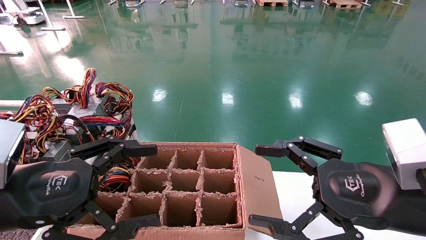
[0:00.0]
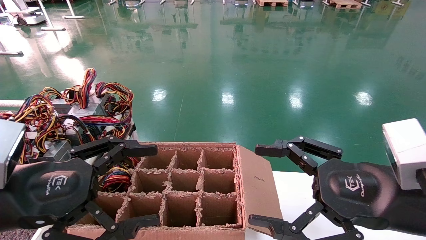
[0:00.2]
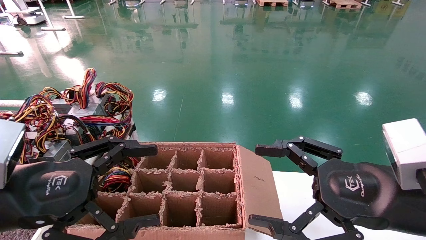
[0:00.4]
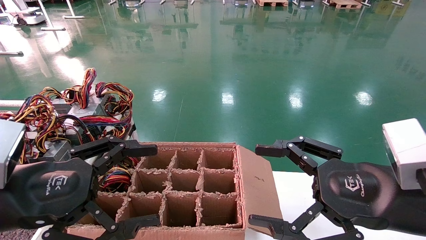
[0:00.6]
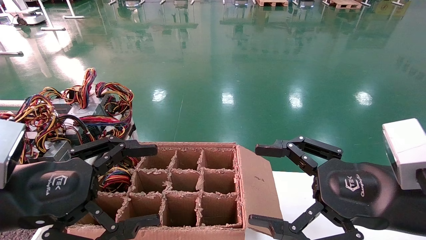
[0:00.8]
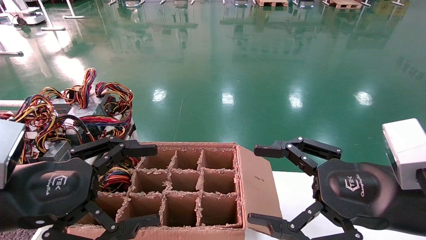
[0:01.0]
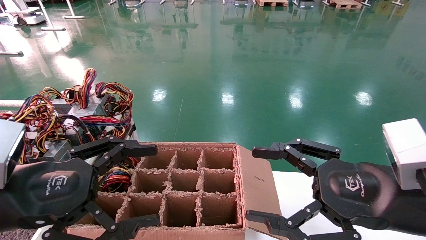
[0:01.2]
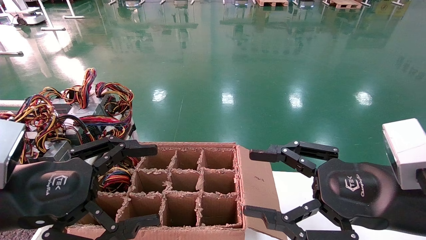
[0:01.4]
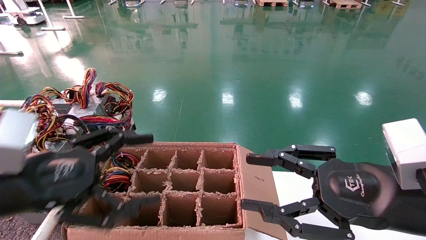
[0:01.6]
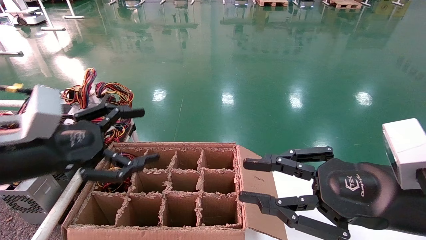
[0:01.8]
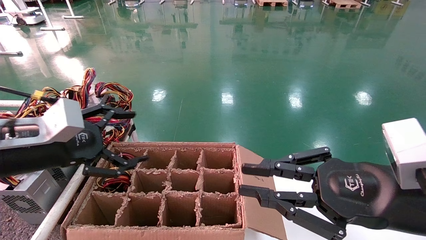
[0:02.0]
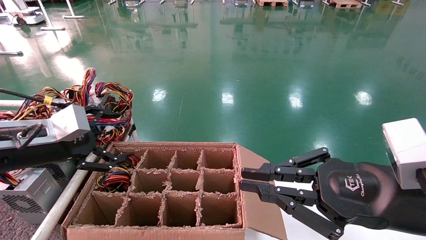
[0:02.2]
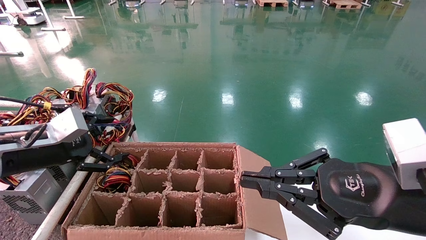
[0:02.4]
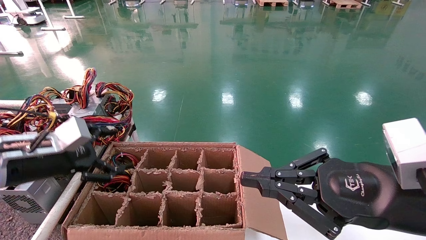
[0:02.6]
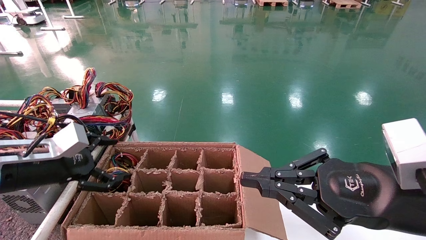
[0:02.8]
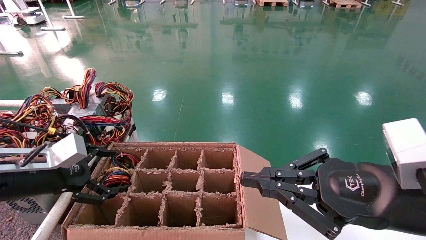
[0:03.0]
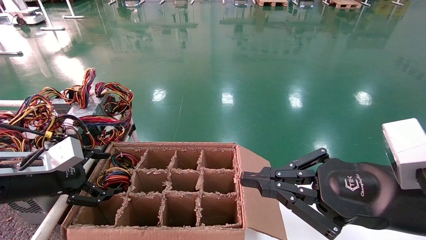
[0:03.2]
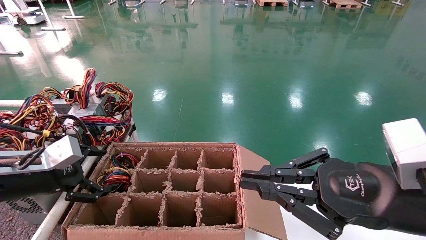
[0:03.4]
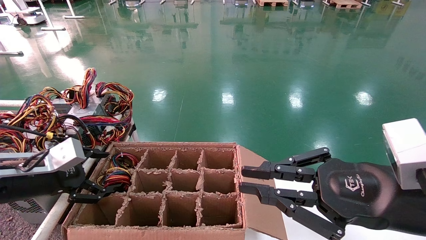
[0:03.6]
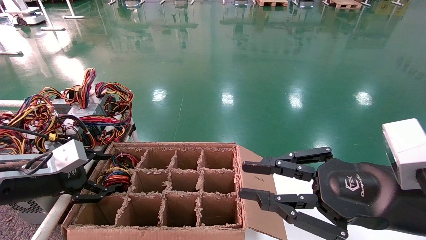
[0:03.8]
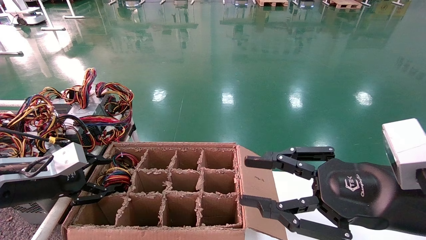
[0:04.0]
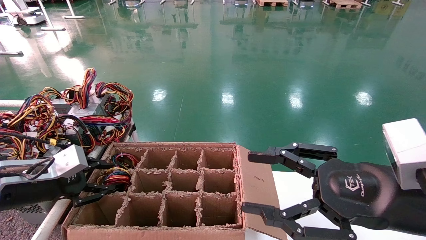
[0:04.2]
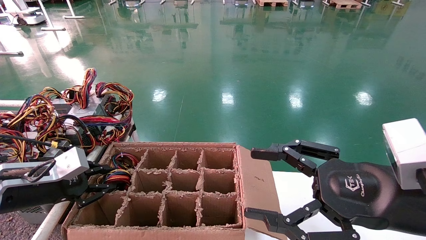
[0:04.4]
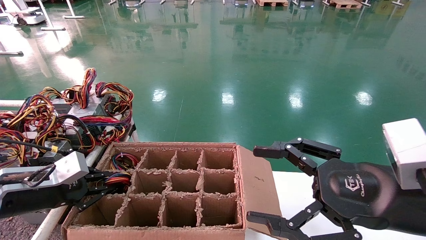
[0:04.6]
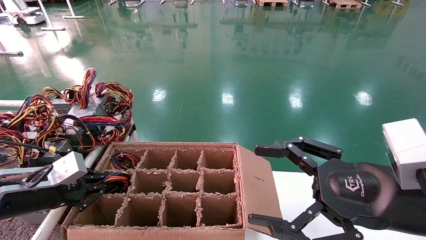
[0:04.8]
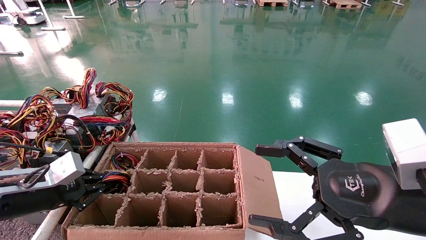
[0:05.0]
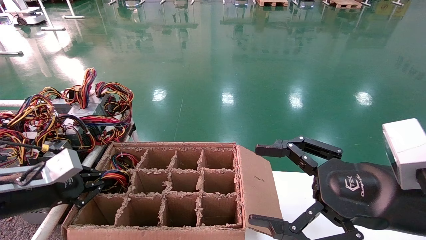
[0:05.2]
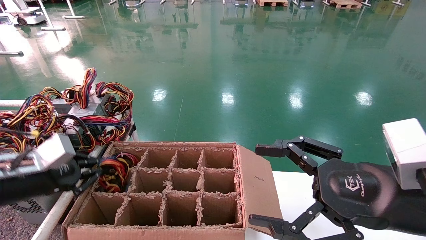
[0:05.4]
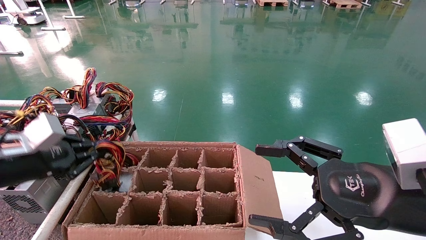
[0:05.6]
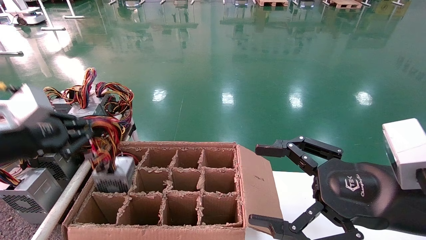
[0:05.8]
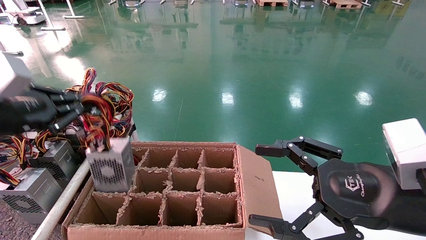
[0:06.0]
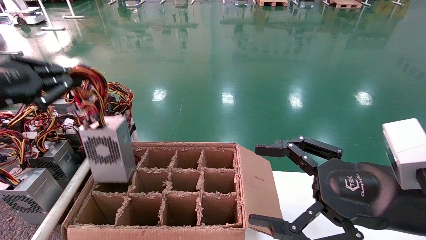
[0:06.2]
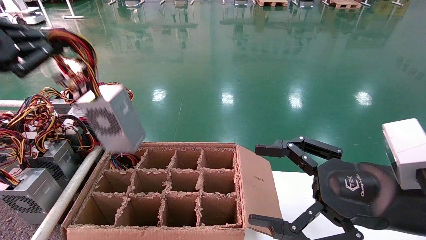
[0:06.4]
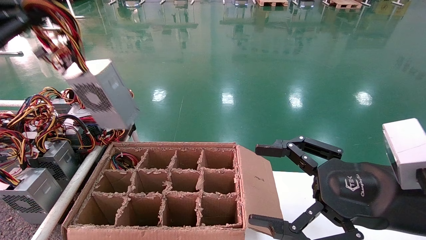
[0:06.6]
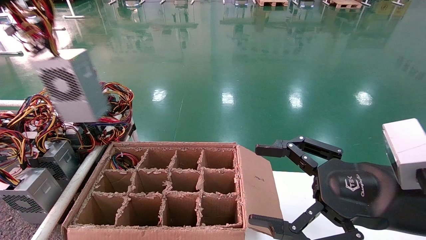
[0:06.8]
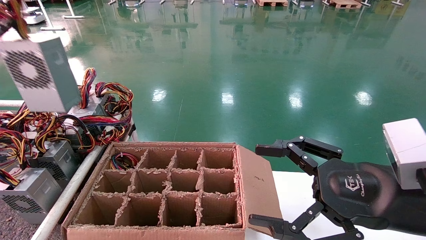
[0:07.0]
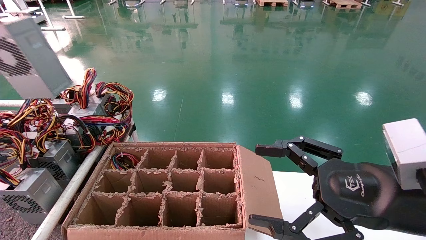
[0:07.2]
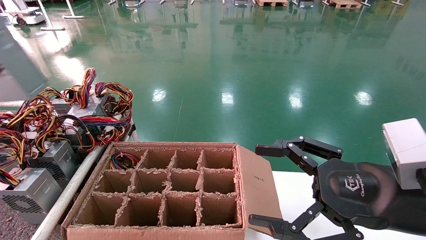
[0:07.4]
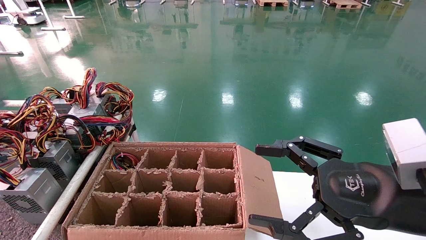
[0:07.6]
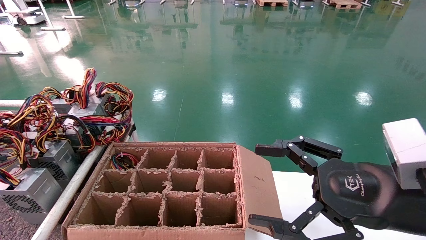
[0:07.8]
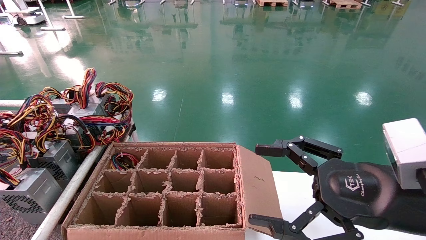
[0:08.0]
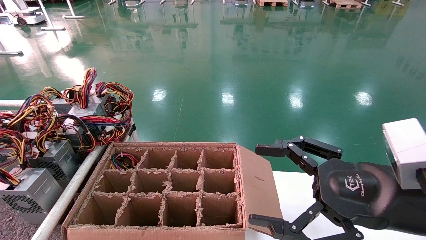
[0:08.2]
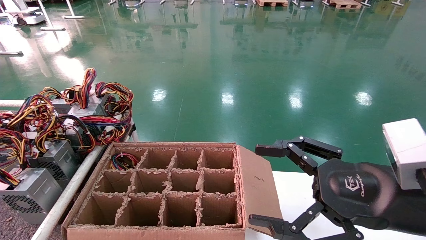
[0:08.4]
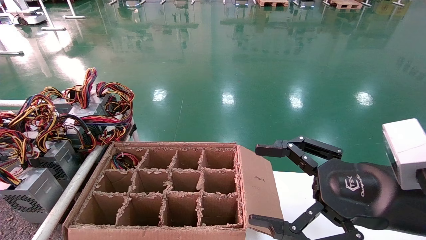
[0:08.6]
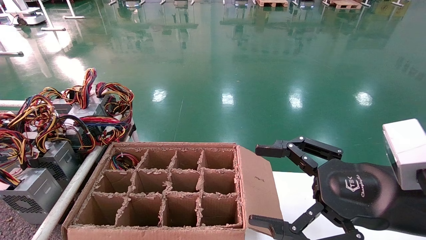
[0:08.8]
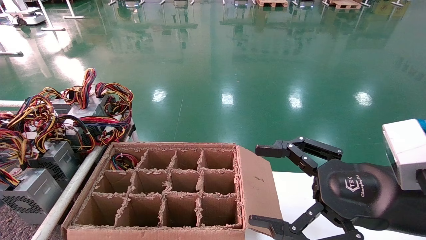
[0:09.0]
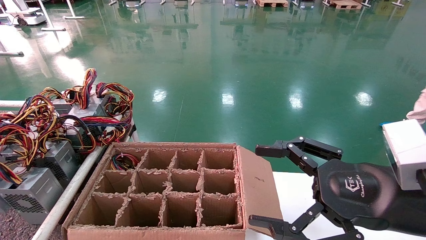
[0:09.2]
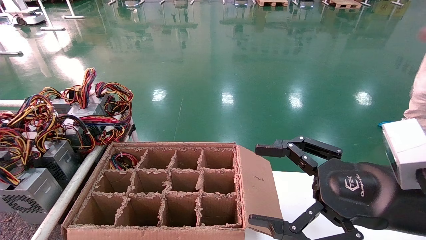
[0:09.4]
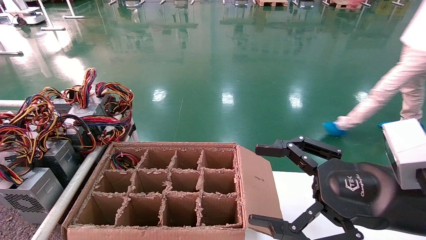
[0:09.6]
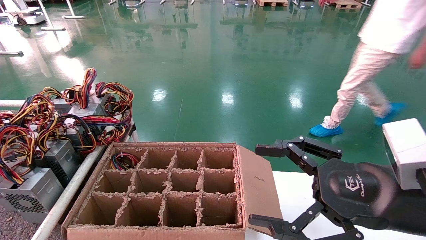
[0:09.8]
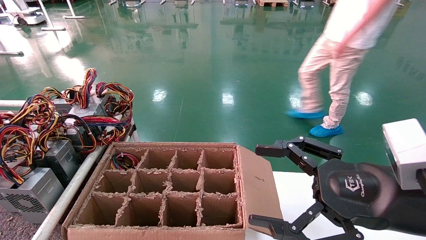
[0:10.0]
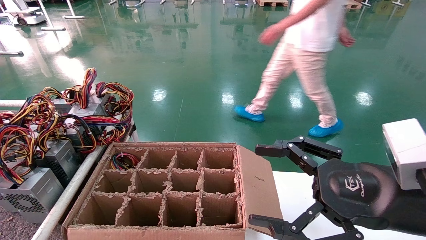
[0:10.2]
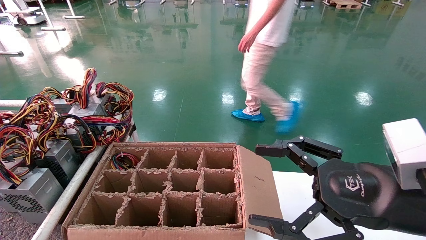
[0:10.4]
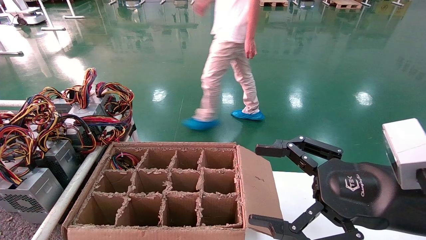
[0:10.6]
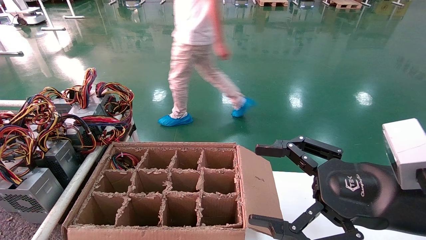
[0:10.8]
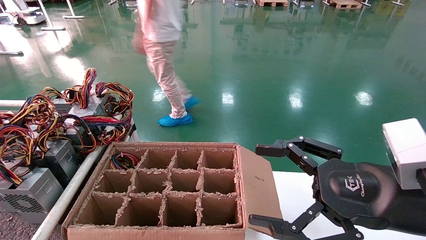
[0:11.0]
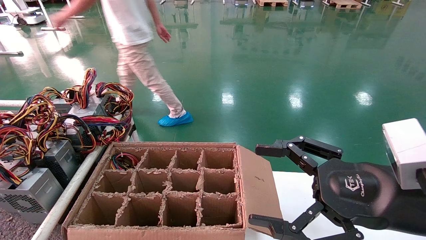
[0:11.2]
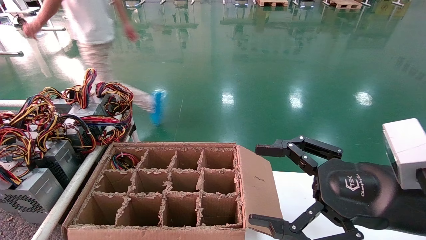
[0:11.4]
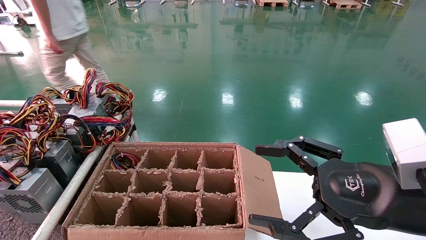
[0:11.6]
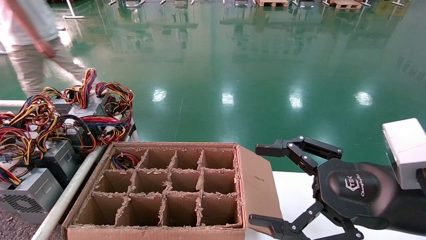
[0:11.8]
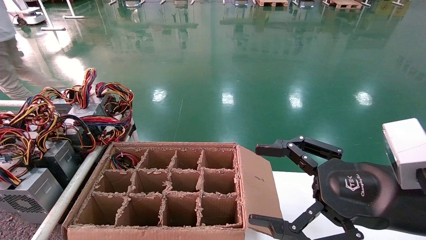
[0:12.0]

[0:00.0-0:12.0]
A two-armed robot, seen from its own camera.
Step, 0:02.0 to 0:05.0: Grab and lift the power supply from the large box.
Step, 0:05.2 to 0:10.8: Place the power supply on the operating table.
0:00.0 to 0:01.6: There are only small adjustments of the grippers.
0:01.6 to 0:03.0: The right gripper closes its fingers. The left gripper heads forward, to the left and downward, covering about 10 cm.
0:03.0 to 0:04.4: The left gripper closes up; the right gripper opens.
0:04.4 to 0:06.0: The left gripper is displaced upward by approximately 15 cm, and closes up.
0:06.0 to 0:07.6: The left gripper heads to the left, backward and upward, covering about 25 cm.
0:07.6 to 0:09.0: The left gripper goes some 15 cm downward and to the left.
0:09.0 to 0:10.4: The left gripper shifts some 10 cm forward and downward.
0:10.4 to 0:12.0: The left gripper opens its fingers.

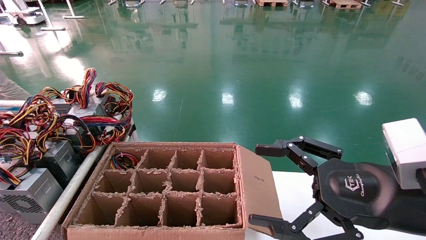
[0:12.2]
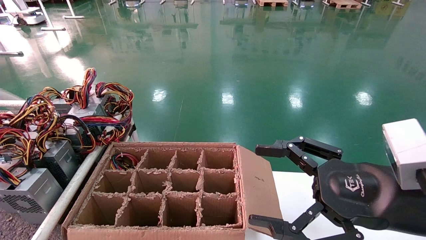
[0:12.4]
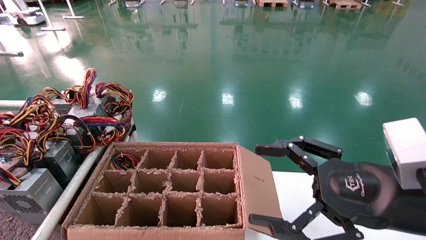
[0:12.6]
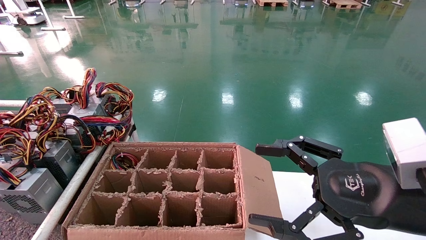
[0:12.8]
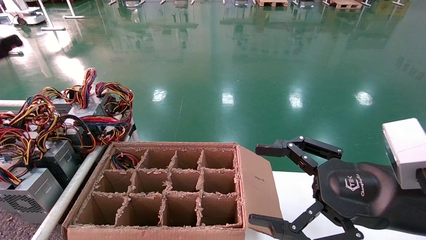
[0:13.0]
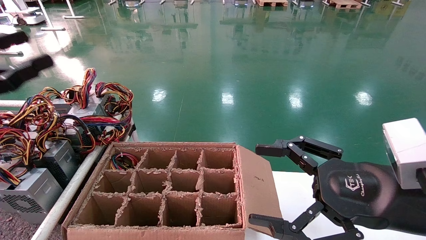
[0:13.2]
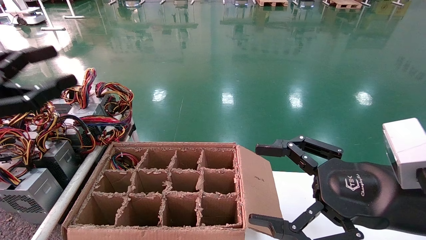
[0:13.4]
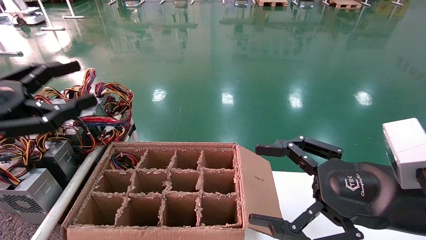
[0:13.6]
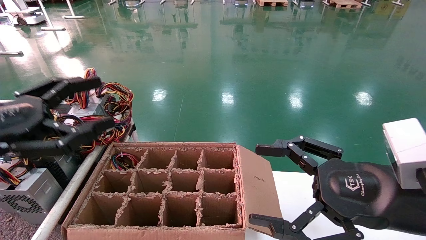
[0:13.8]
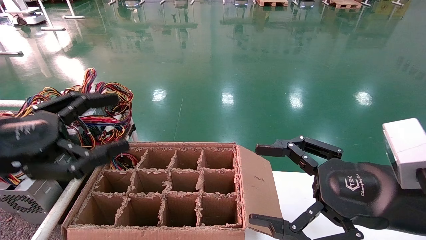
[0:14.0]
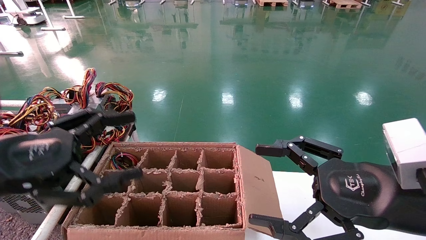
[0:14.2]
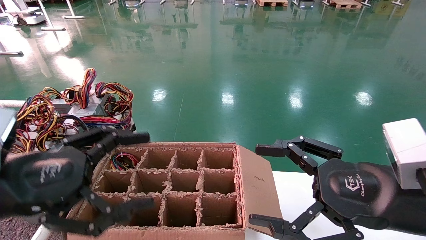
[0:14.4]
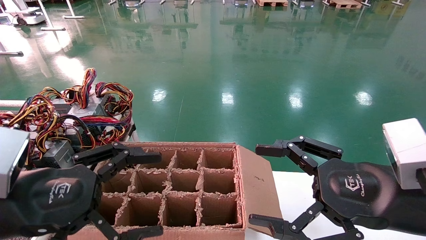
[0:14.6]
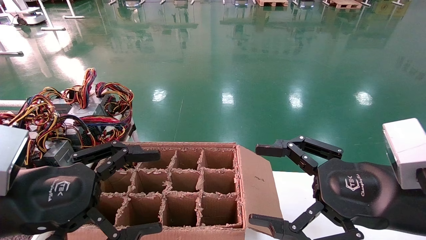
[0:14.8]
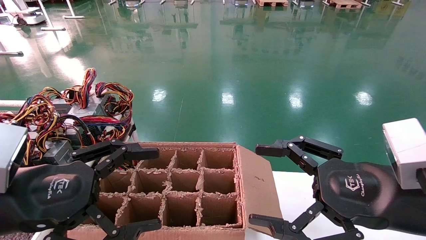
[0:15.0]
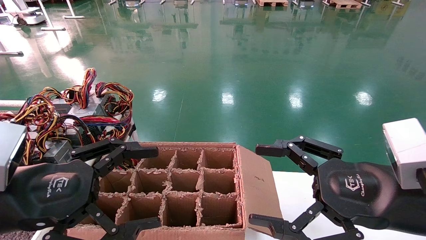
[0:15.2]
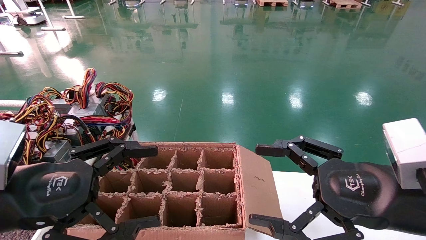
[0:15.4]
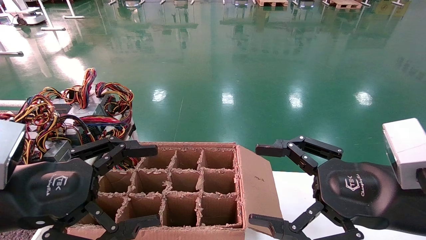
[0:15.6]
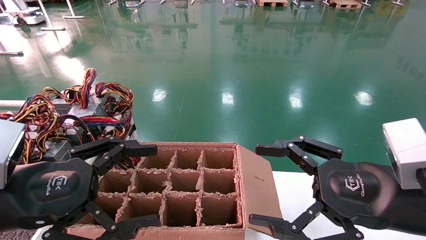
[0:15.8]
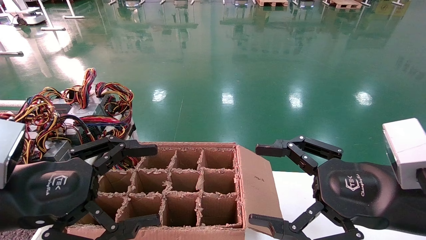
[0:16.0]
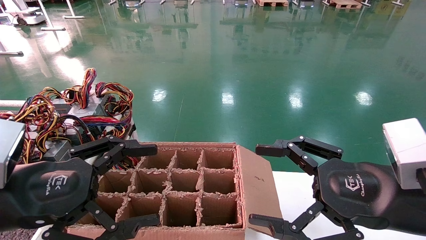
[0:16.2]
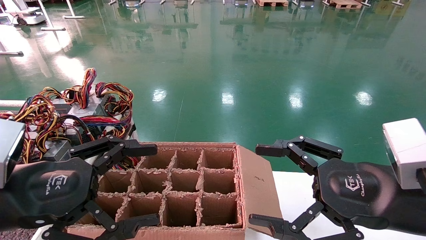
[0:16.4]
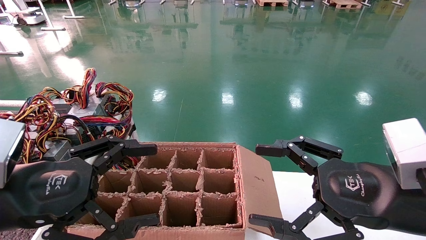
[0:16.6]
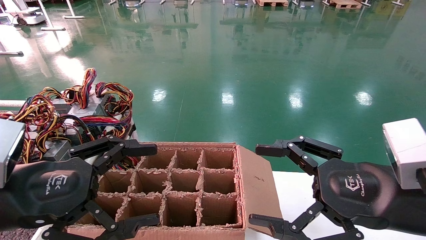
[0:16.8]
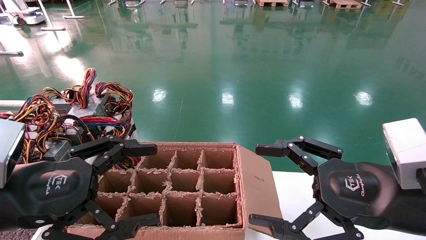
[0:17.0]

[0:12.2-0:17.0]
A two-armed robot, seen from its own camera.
0:12.2 to 0:13.8: The left gripper travels to the right by some 20 cm.
0:13.8 to 0:15.4: The left gripper goes approximately 5 cm to the right.
0:15.4 to 0:17.0: The two grippers keep their place.
